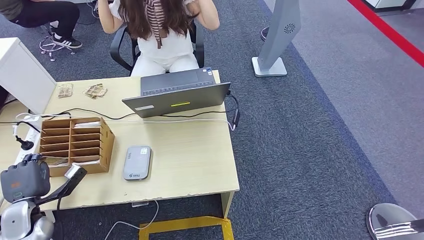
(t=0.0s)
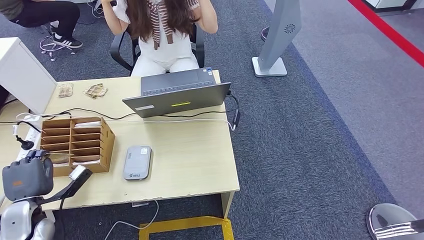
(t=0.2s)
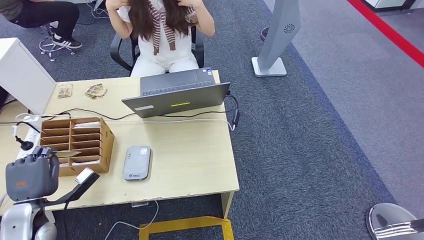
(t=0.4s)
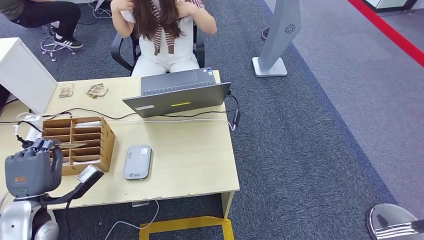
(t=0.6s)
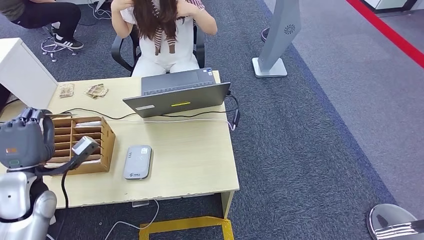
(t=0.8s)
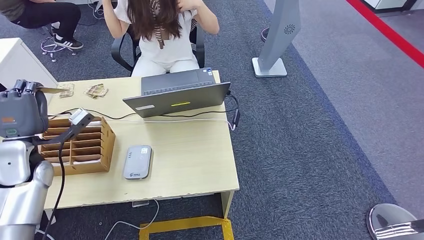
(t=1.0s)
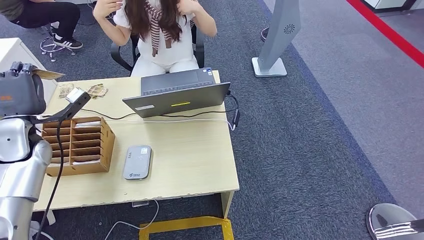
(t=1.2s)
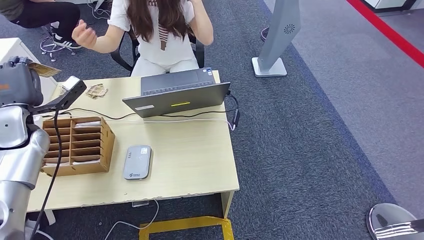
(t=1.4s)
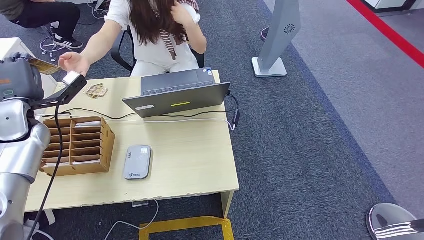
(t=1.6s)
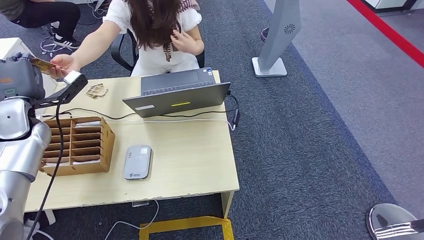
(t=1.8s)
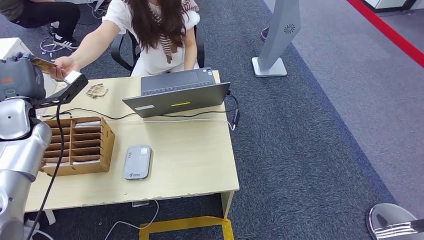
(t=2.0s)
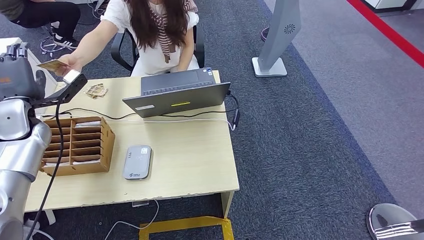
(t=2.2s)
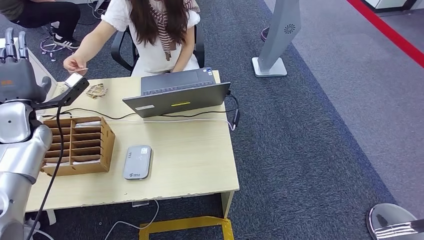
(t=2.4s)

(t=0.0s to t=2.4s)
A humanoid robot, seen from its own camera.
Step, t=1.2s - t=2.4s: Hand the room key to the person.
t=0.0s - t=1.2s: The left hand is displaced upward and forward by roughly 25 cm.
t=1.2s - t=2.4s: There are only small adjustments of the hands.
